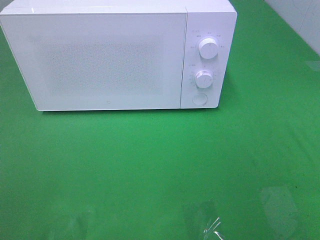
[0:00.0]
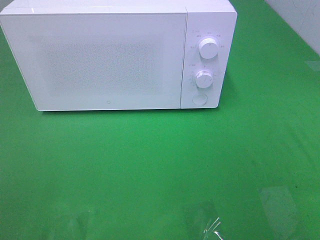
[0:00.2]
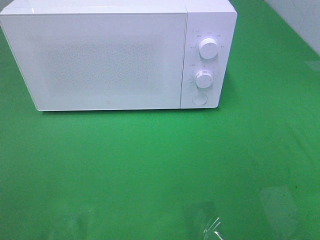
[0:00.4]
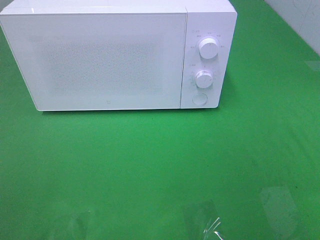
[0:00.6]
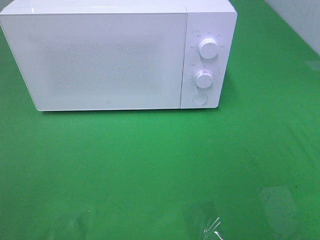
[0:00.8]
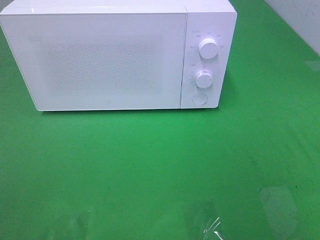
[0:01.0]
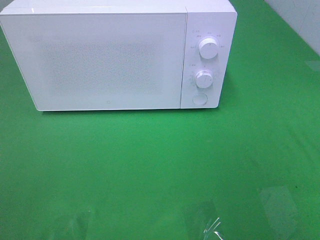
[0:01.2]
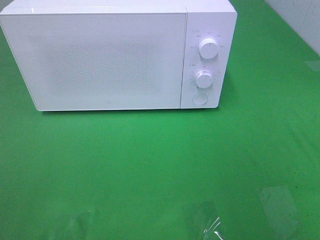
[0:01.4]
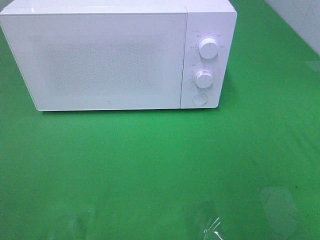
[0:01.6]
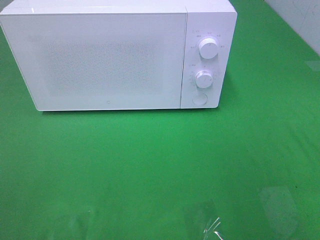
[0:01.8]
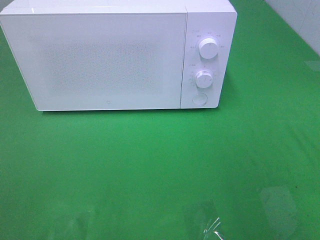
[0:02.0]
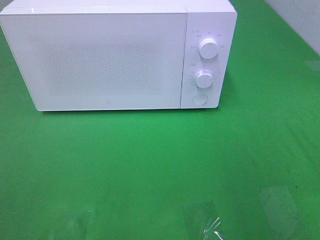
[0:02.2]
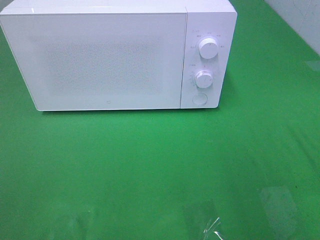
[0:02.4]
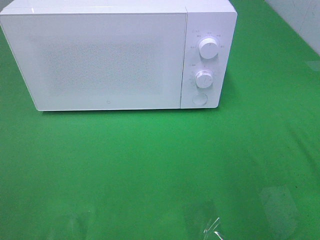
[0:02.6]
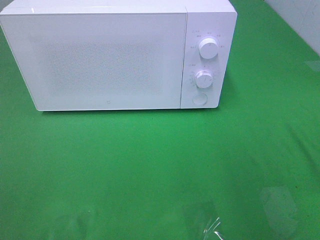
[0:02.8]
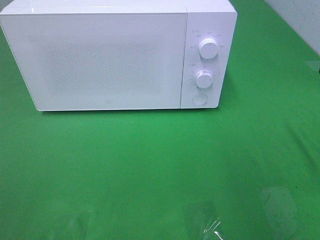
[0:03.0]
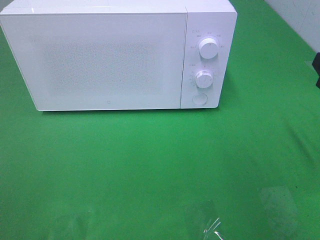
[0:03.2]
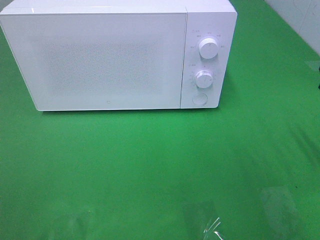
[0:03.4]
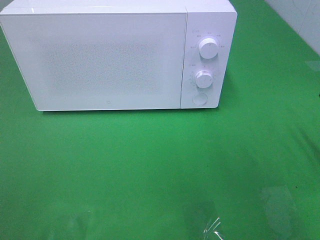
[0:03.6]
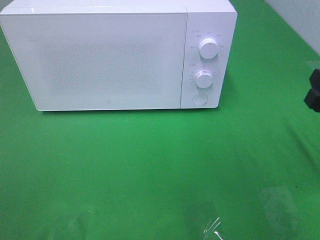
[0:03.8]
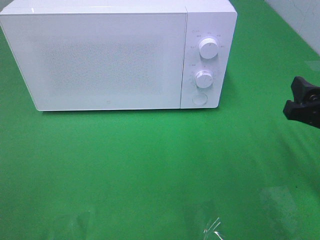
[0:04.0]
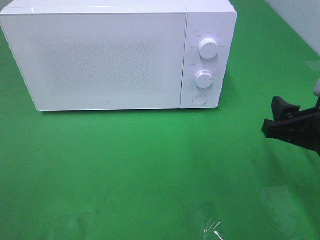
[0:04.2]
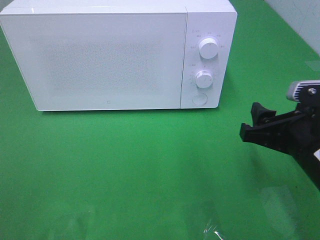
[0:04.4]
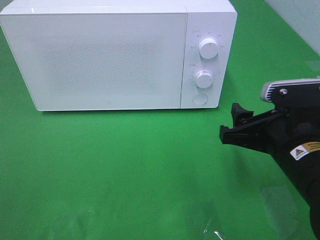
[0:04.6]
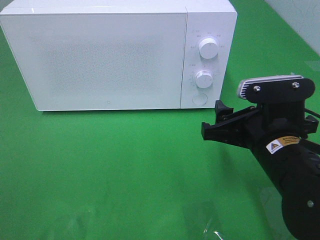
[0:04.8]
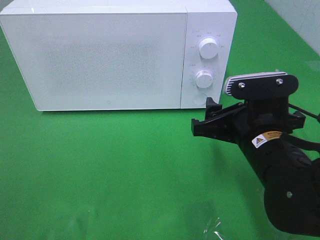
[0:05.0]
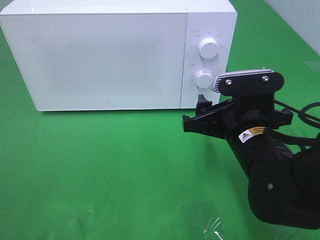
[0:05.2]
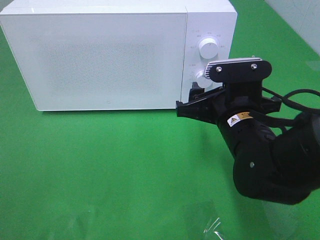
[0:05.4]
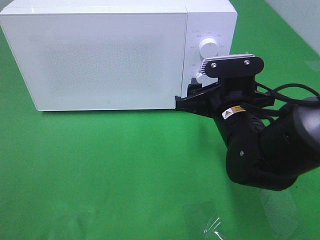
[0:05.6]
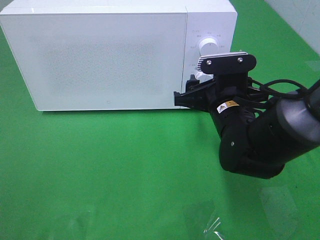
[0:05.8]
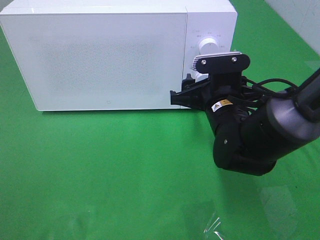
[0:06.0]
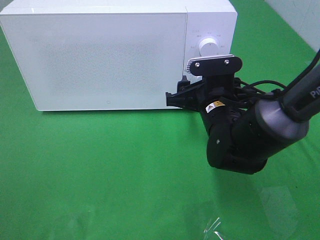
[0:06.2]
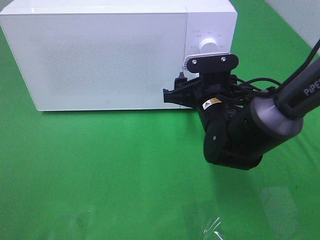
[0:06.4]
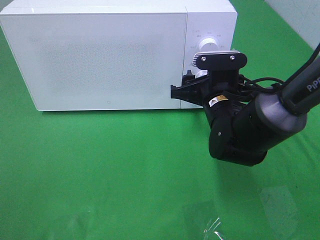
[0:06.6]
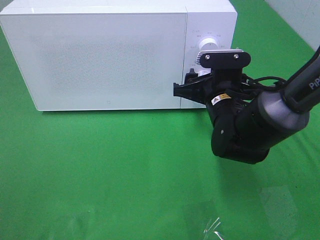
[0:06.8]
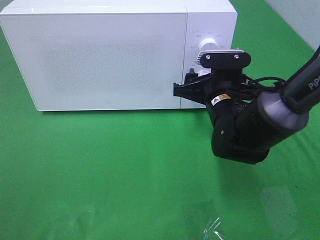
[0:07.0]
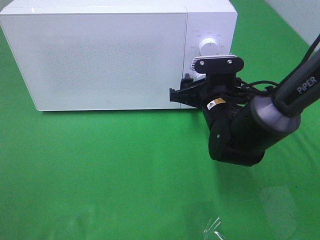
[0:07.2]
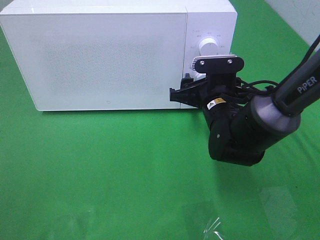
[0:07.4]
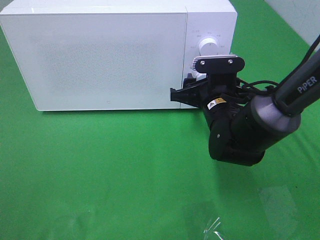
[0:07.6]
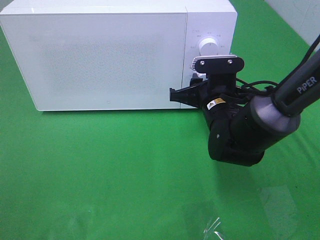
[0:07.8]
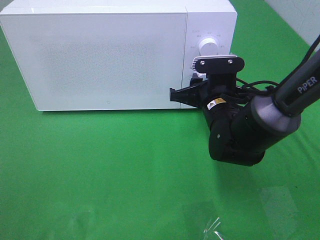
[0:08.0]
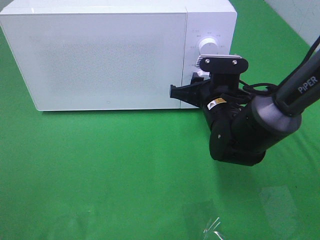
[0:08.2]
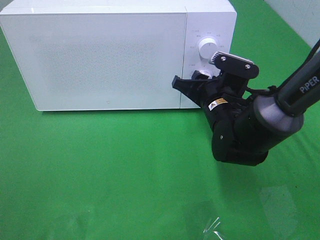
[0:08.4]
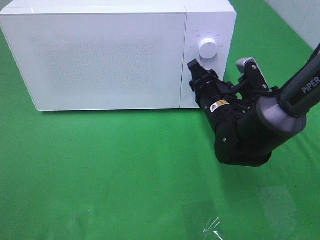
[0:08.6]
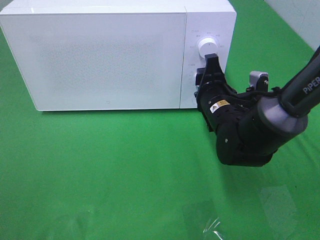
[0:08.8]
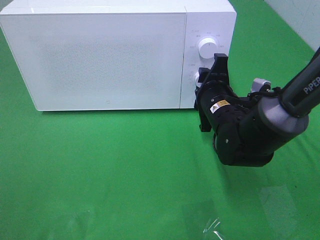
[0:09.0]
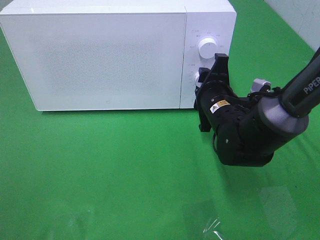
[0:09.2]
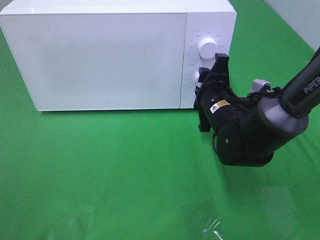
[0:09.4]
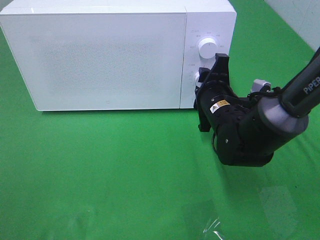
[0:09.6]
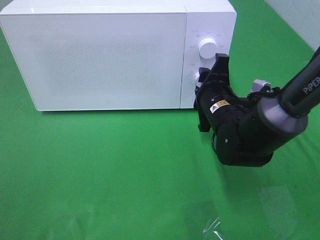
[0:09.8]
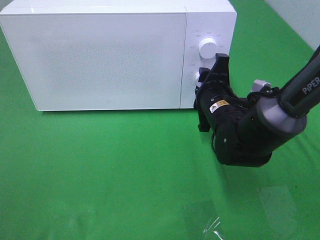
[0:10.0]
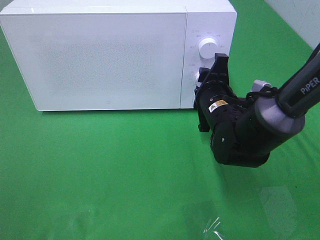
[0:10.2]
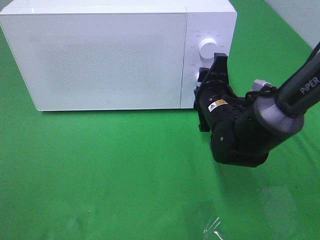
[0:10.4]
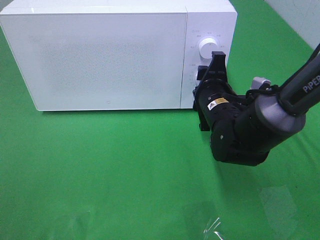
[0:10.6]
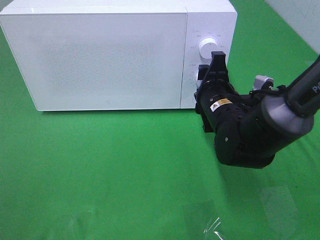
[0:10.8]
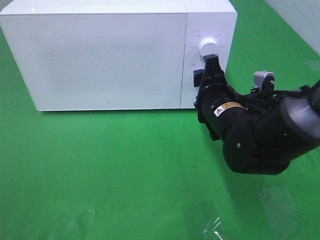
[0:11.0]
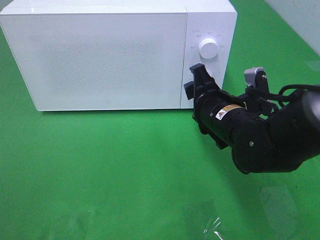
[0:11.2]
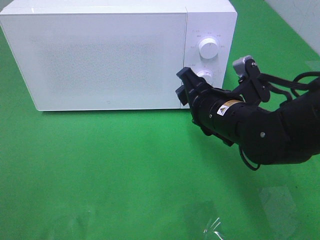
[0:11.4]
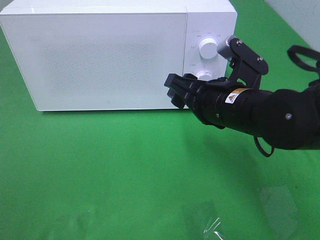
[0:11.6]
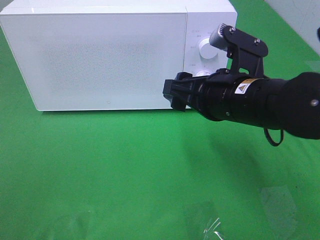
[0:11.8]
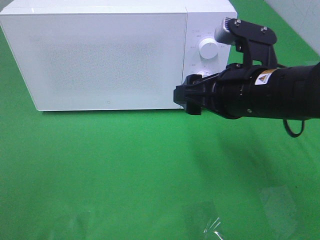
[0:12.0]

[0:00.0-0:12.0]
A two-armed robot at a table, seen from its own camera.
Task of the whole recording: Heat the burger.
Step, 0:00.0 to 0:11.0: Right hand: twist timer button.
0:03.0 to 0:04.4: The right gripper moves downward and to the left, about 10 cm.
0:04.4 to 0:06.0: The right gripper goes about 15 cm forward and to the left.
0:06.0 to 0:07.6: The grippers move only a little.
0:09.0 to 0:10.4: The two grippers keep their place.
0:10.4 to 0:12.0: The right gripper travels upward and backward by roughly 15 cm, and opens.

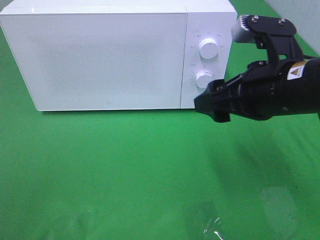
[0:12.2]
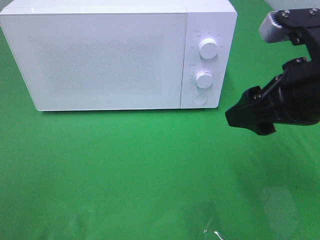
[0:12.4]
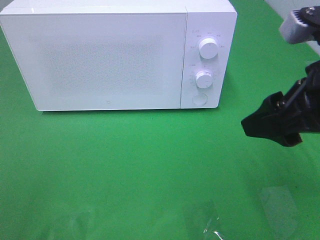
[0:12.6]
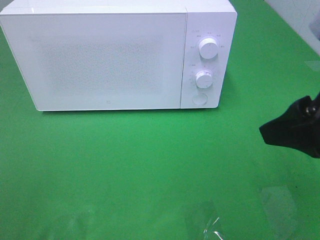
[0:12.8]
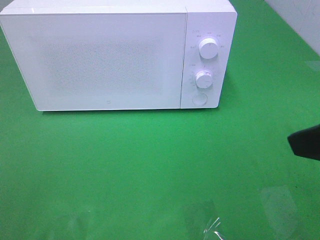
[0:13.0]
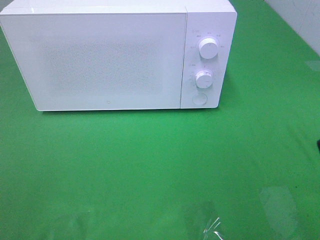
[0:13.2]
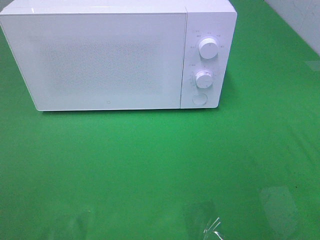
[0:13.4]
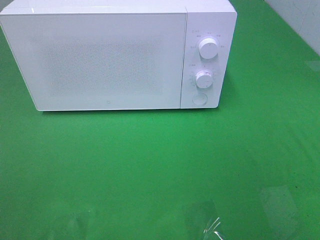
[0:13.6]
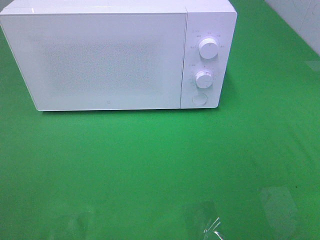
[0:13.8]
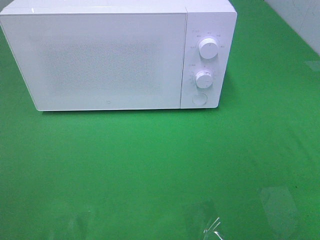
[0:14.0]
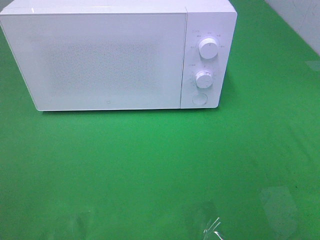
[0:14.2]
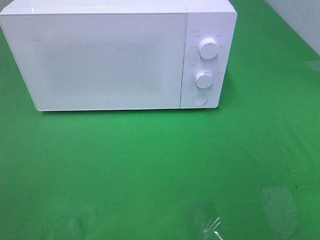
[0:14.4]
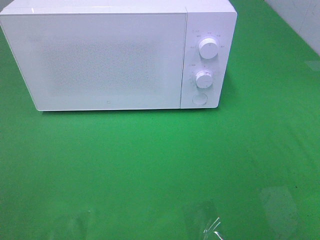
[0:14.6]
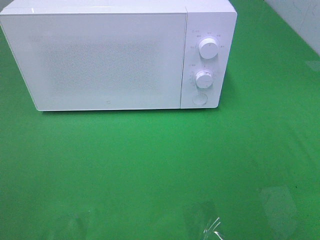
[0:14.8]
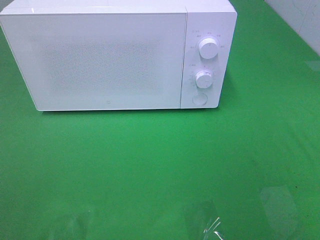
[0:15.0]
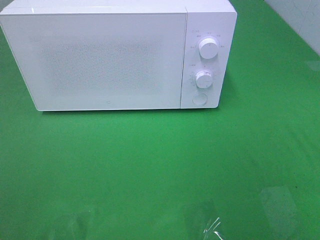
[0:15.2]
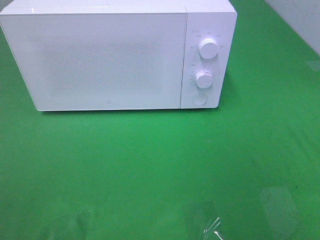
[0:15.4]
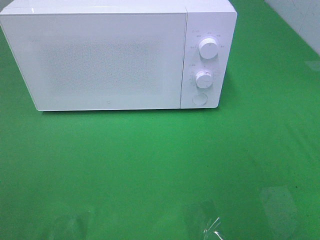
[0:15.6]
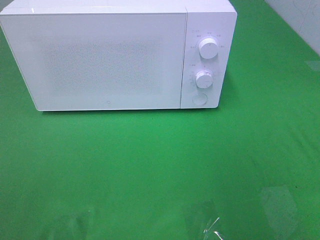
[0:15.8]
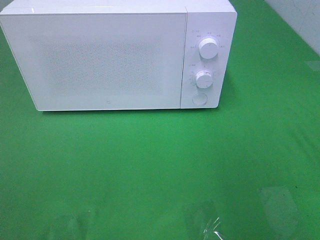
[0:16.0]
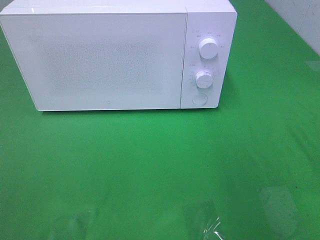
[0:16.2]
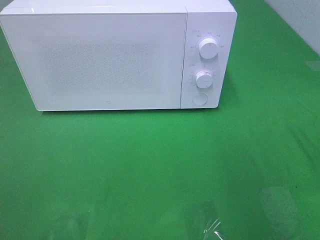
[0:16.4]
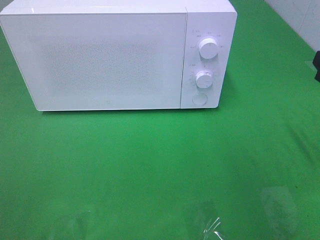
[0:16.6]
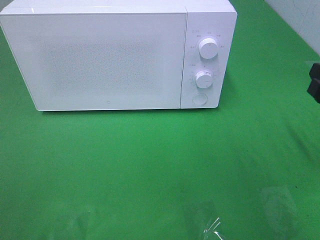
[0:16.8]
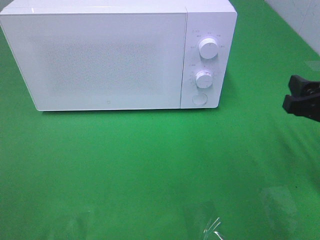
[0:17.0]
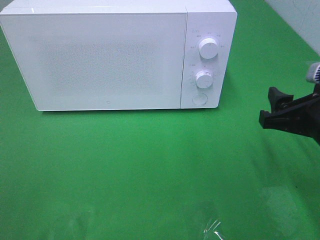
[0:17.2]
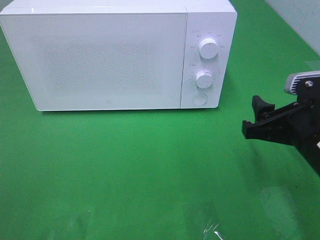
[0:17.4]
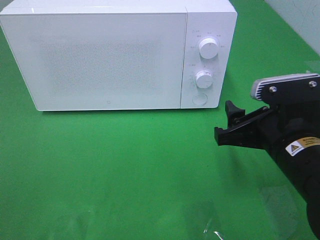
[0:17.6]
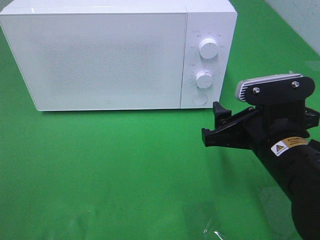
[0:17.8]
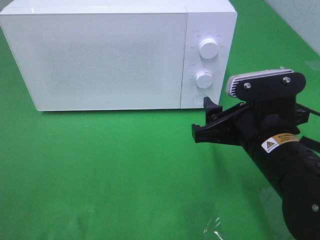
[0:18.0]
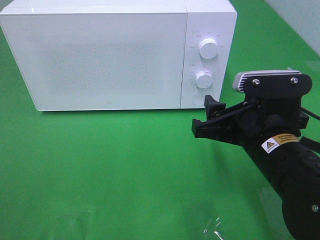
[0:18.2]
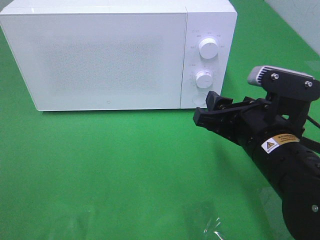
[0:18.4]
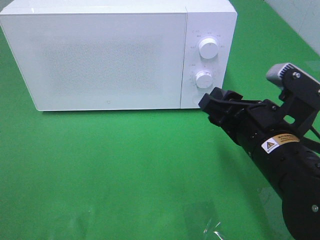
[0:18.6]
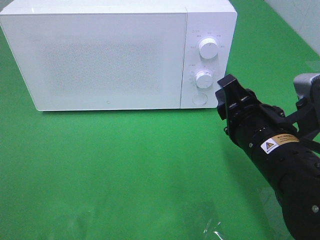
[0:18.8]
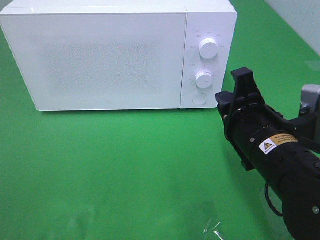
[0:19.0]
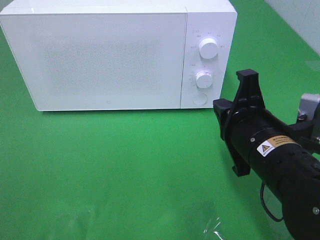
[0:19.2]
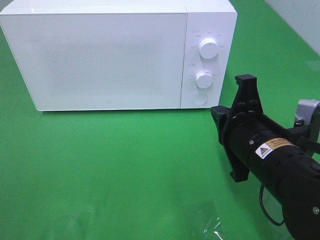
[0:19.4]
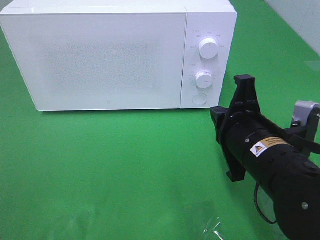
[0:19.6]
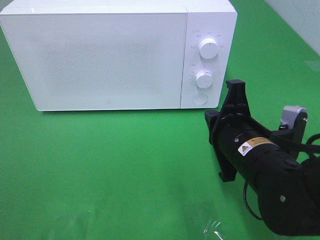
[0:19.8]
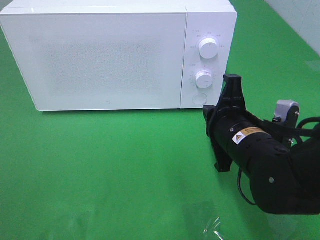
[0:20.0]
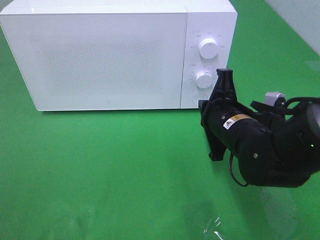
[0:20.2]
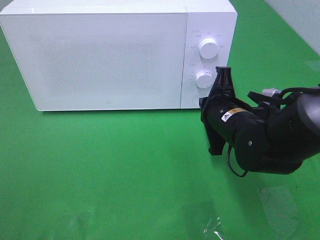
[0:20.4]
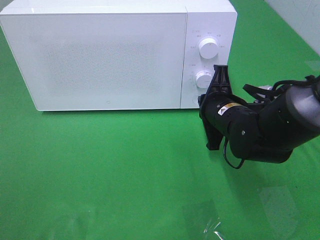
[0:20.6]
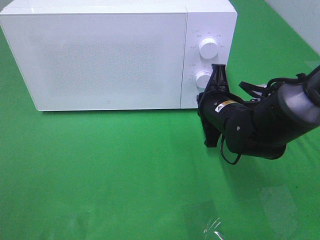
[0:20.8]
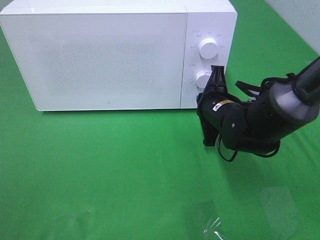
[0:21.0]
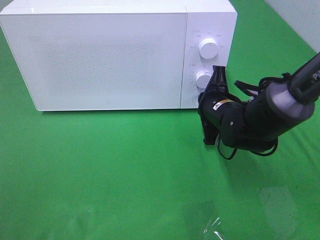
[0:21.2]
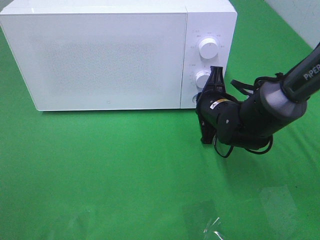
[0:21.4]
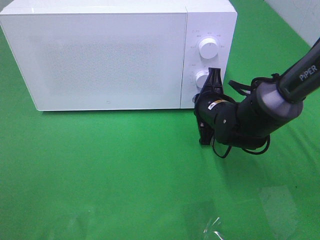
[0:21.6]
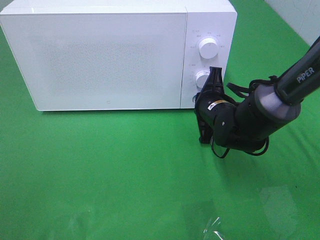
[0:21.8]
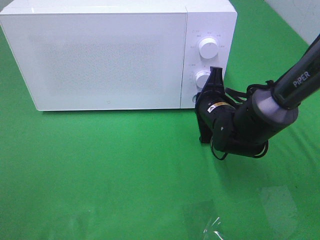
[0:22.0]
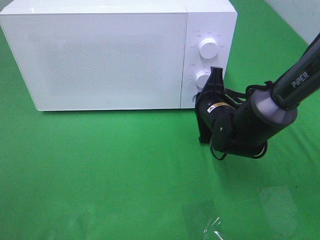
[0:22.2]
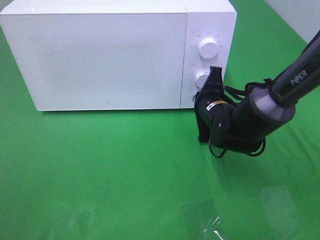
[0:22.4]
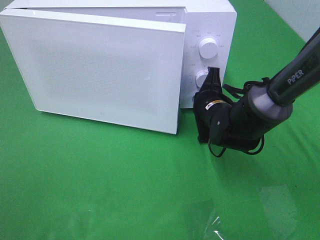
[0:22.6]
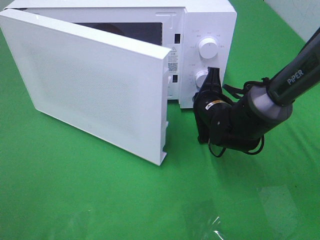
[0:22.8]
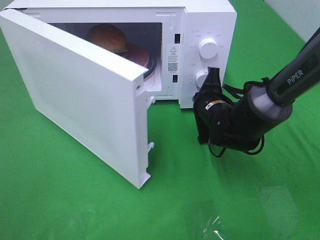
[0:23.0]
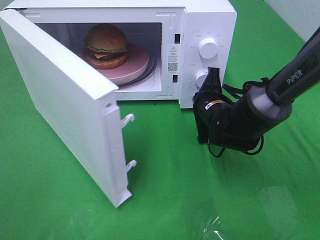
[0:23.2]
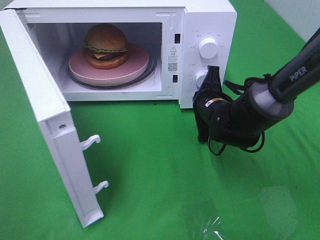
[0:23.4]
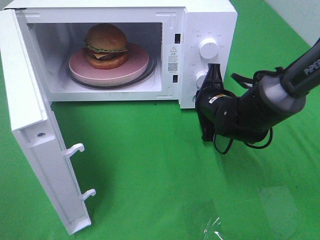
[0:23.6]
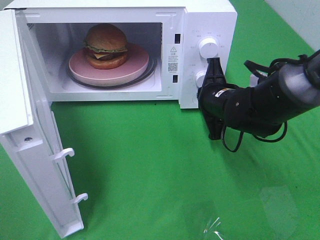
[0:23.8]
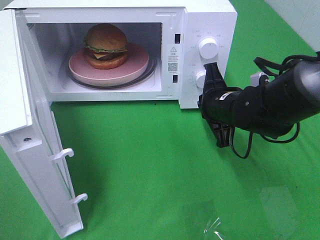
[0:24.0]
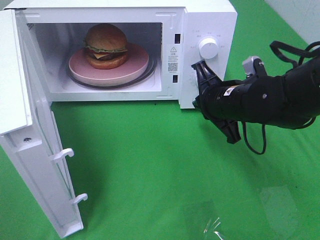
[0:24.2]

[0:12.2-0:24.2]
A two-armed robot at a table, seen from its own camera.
Task of the whole recording: Heat the burger.
Step, 0:12.2 to 0:24.0: Right hand: press the switch.
0:12.2 to 0:13.8: The right gripper moves backward and to the right, approximately 25 cm.
0:16.6 to 0:18.2: The right gripper travels to the left and downward by approximately 15 cm.
0:18.2 to 0:19.8: The right gripper closes its fingers.
0:19.8 to 0:21.2: The right gripper goes roughly 15 cm forward.
0:21.2 to 0:22.6: The grippers stay close to where they were, moving slightly.
0:22.6 to 0:24.2: The right gripper shifts about 10 cm upward and backward.
